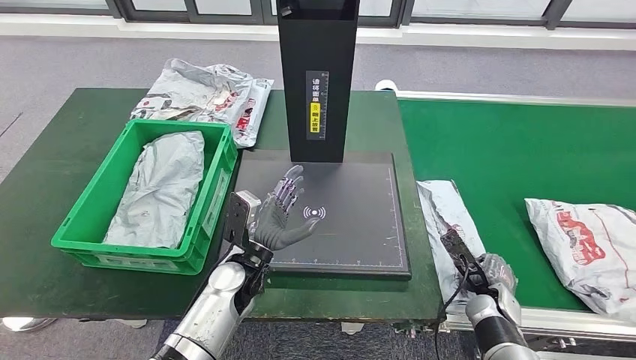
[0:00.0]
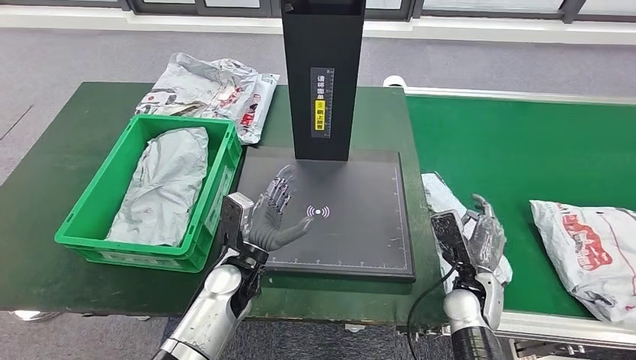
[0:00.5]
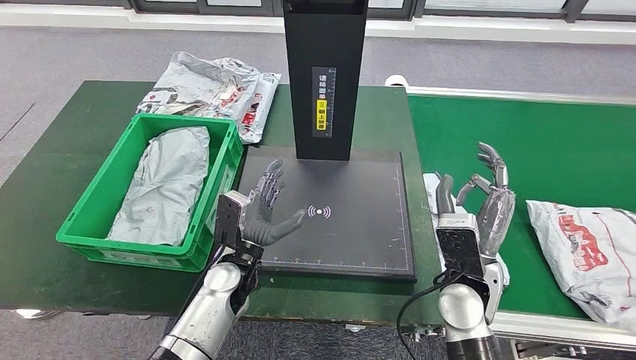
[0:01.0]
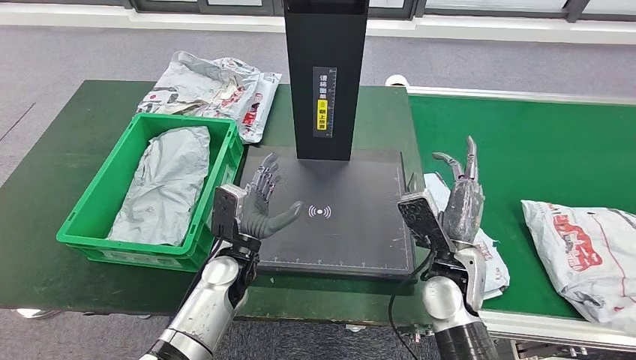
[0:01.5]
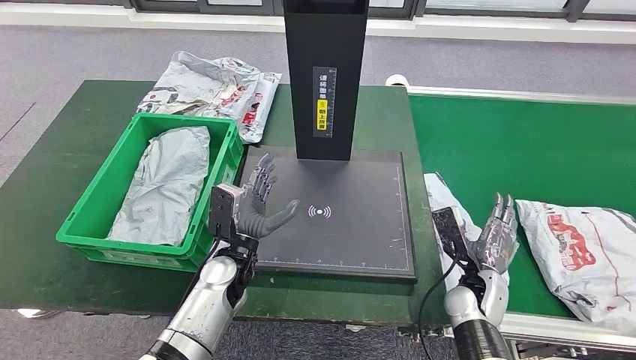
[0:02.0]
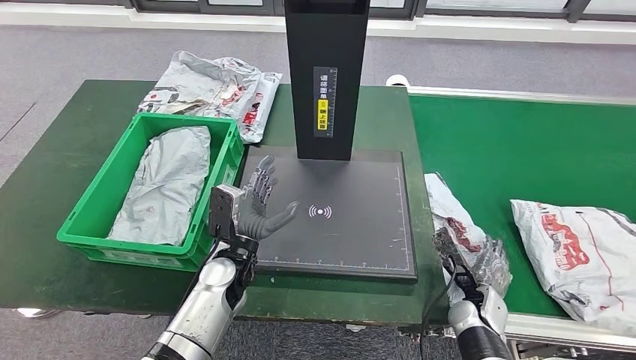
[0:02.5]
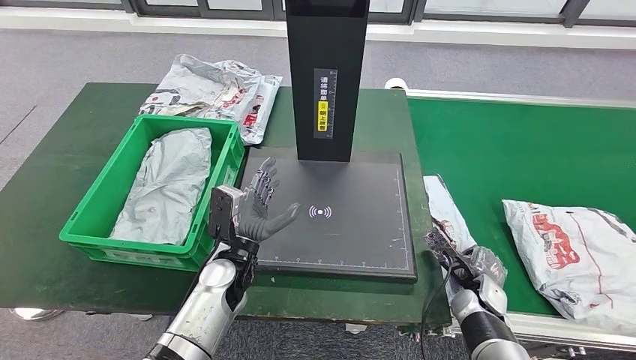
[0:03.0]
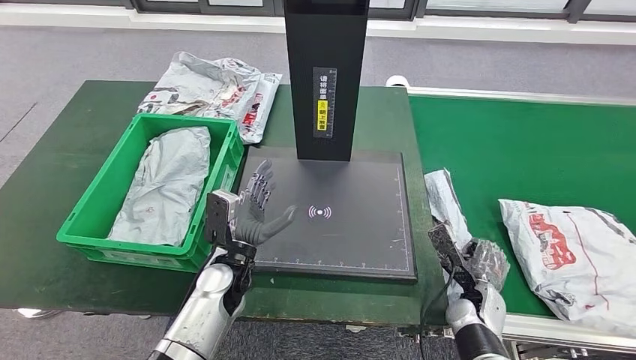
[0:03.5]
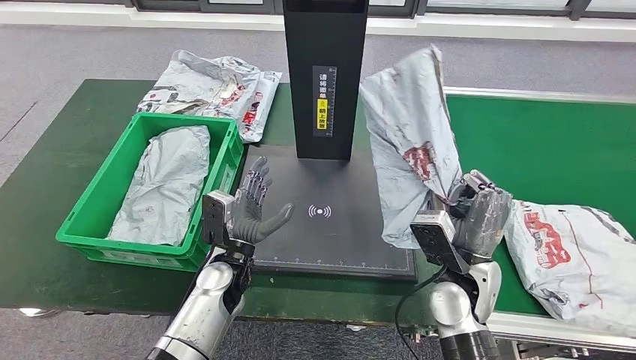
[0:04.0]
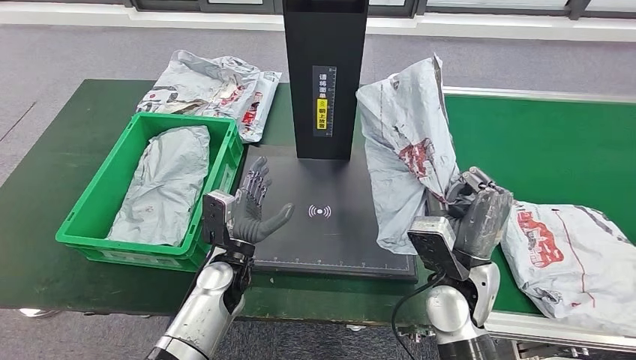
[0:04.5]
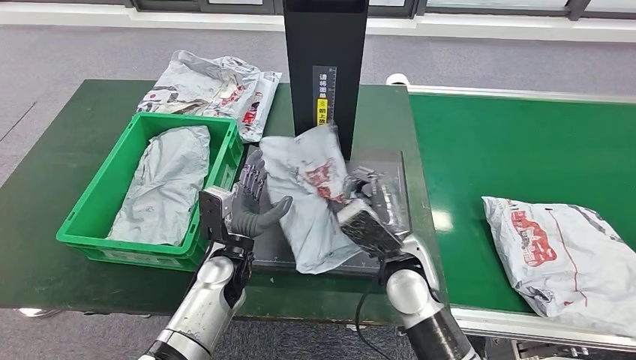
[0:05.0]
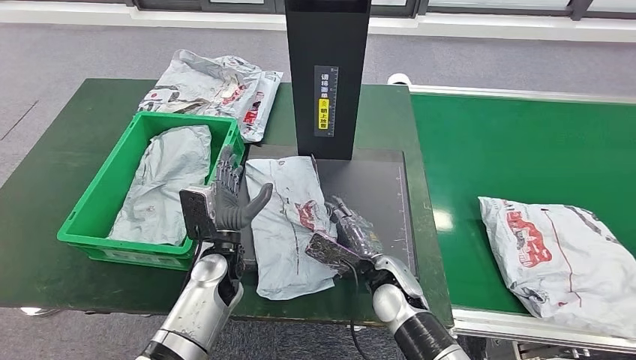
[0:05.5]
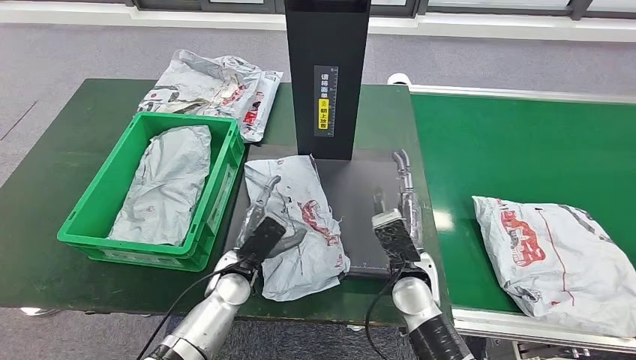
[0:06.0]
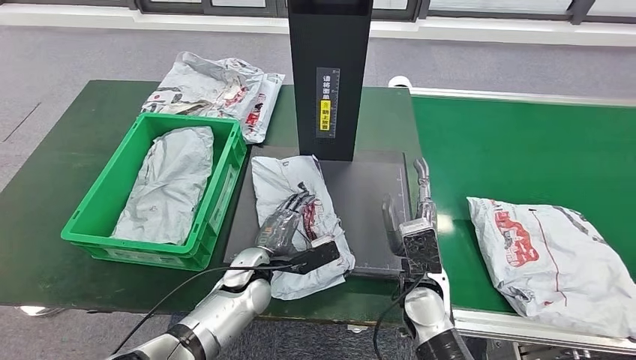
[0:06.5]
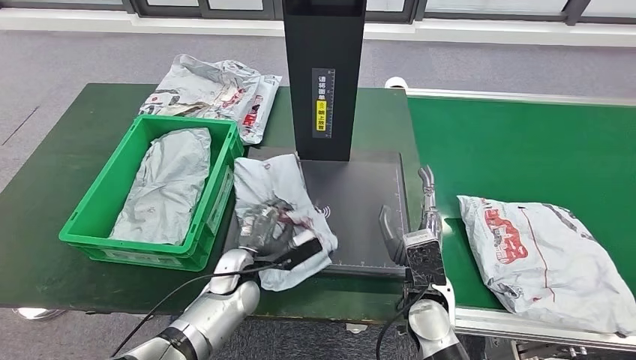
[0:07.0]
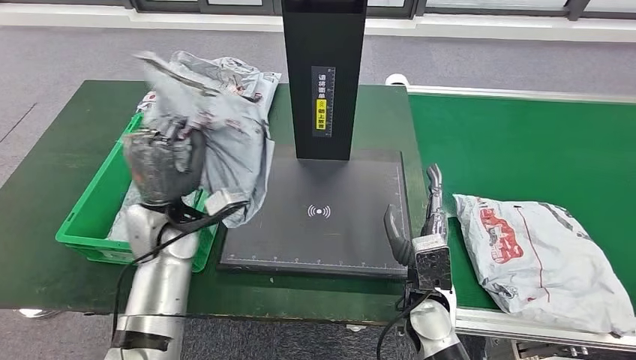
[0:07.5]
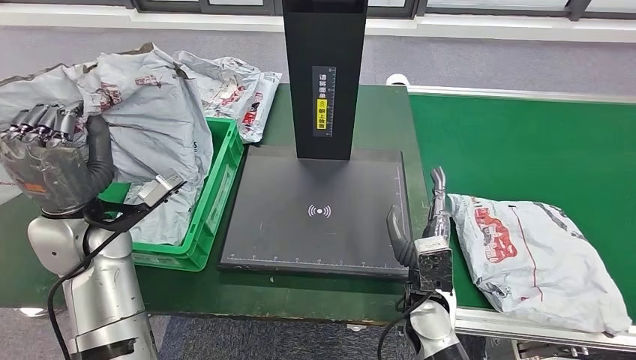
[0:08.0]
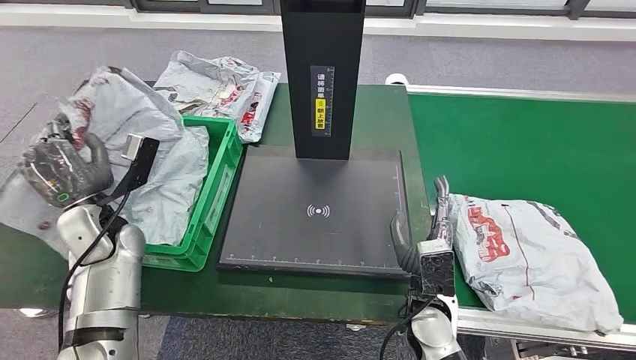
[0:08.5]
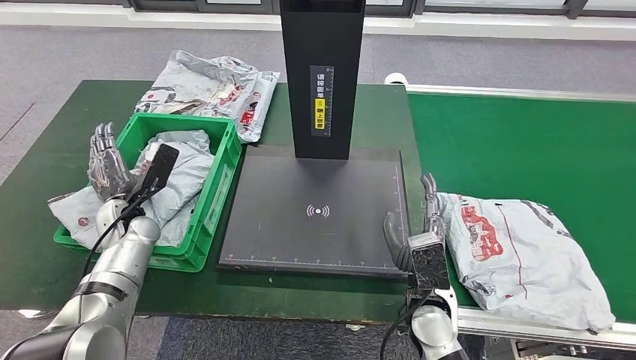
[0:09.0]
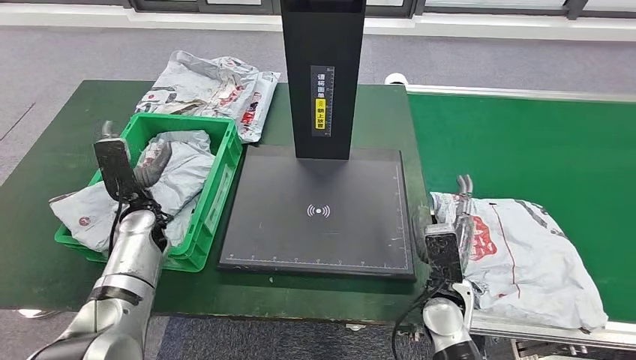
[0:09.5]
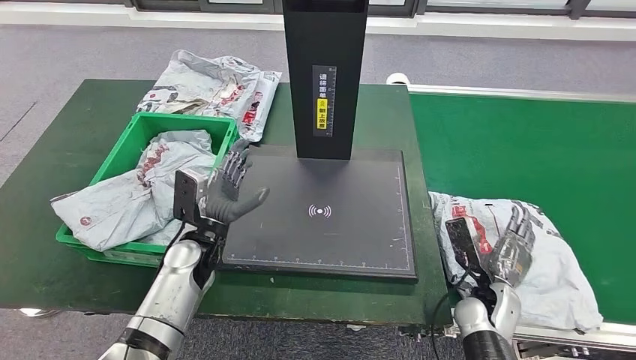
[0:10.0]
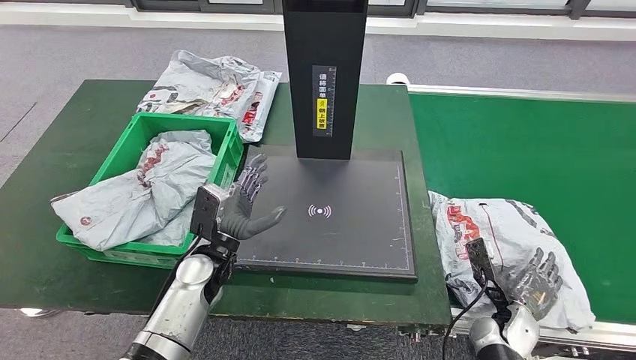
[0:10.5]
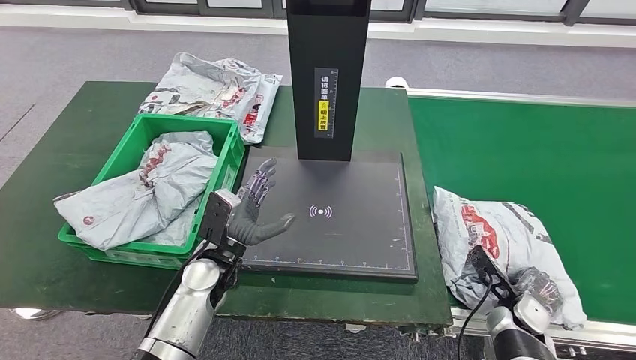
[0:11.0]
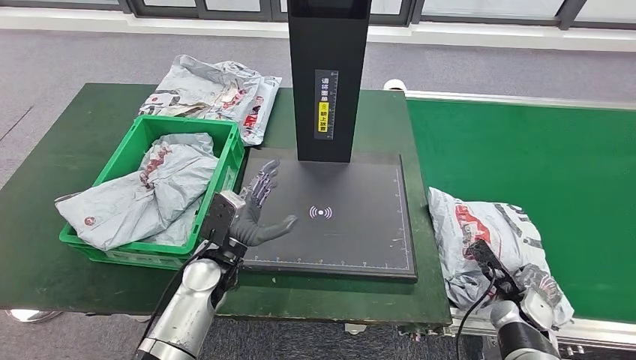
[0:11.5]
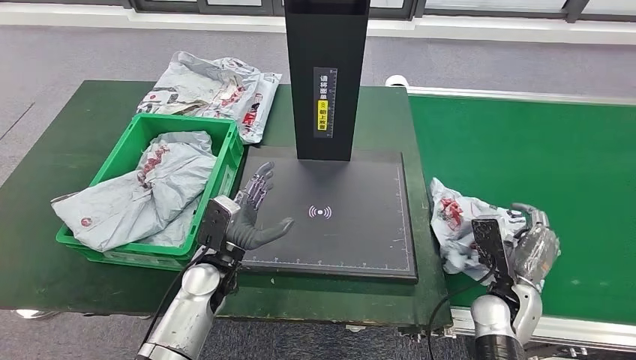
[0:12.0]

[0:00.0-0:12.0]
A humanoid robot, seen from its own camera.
Step, 0:00.0 to 0:04.5: Pick up the parcel from the conveyor belt.
Step, 0:05.0 to 0:06.5: Place the parcel onto the inbound machine.
Step, 0:07.0 to 0:08.0: Pick up the parcel from the inbound machine.
Step, 0:08.5 to 0:10.0: Place the parcel into the delivery box.
0:10.0 to 0:12.0: The left hand ends up about 5 cm from where it was.

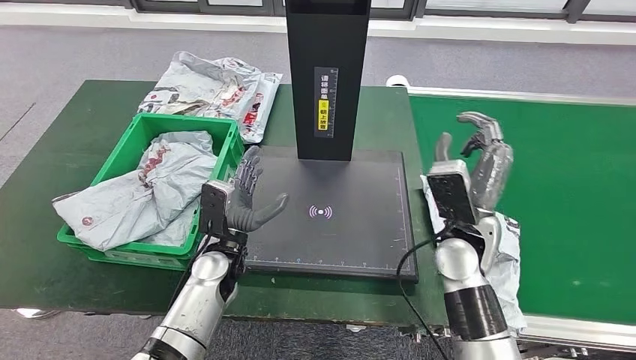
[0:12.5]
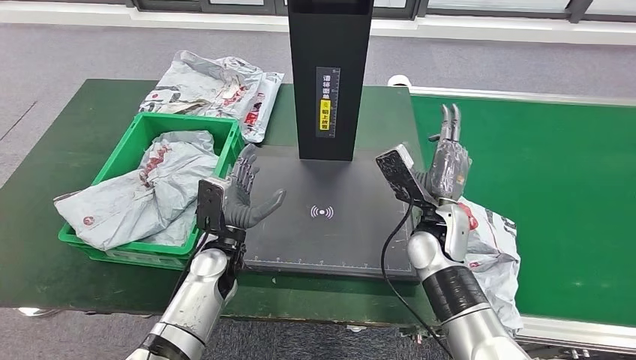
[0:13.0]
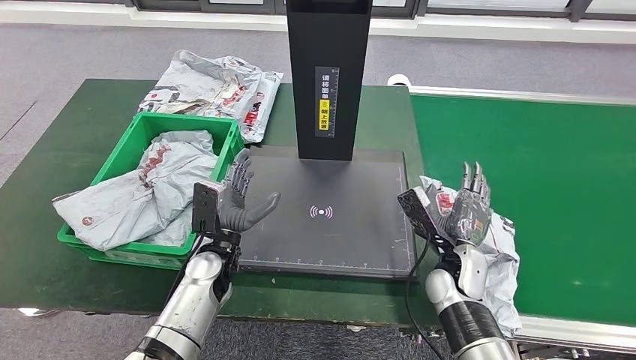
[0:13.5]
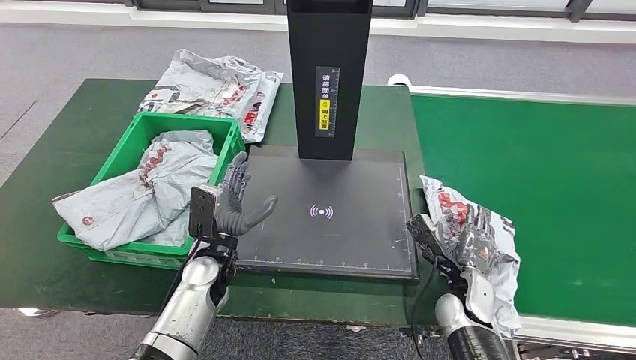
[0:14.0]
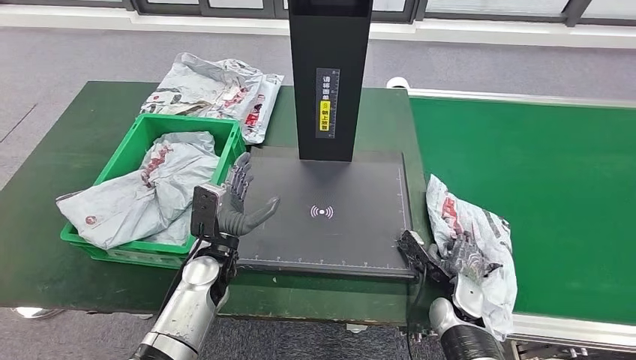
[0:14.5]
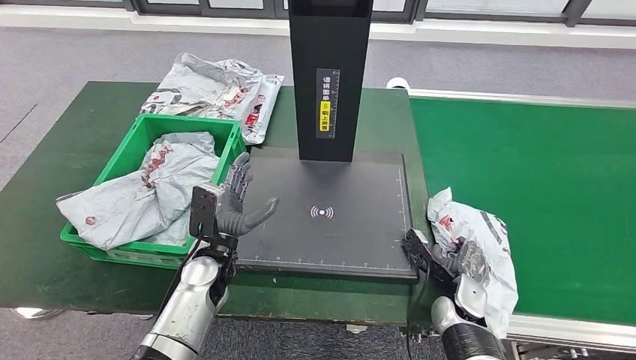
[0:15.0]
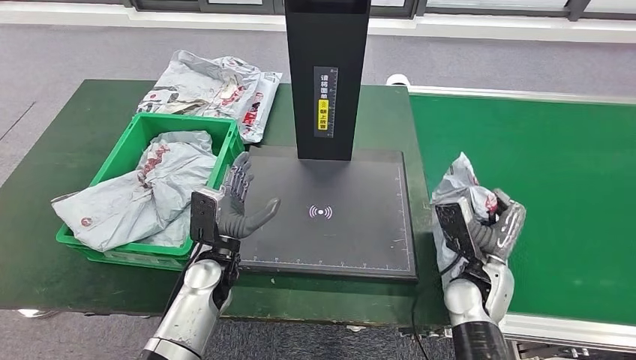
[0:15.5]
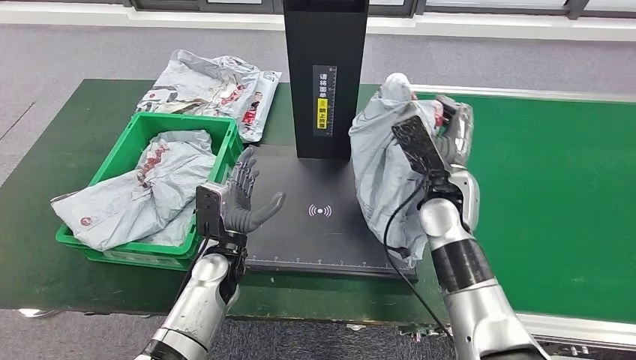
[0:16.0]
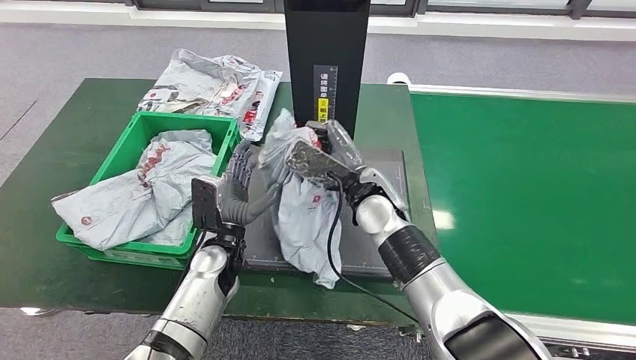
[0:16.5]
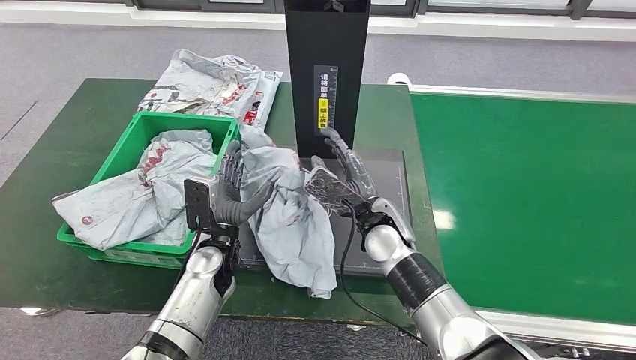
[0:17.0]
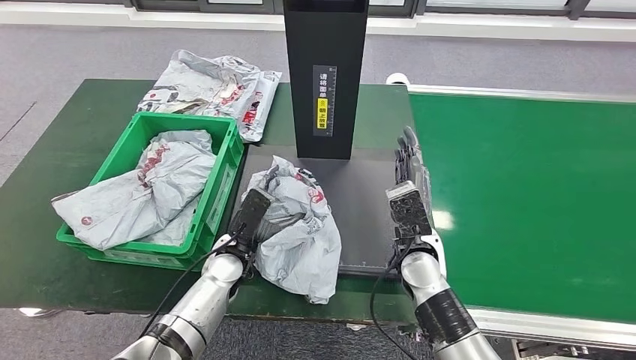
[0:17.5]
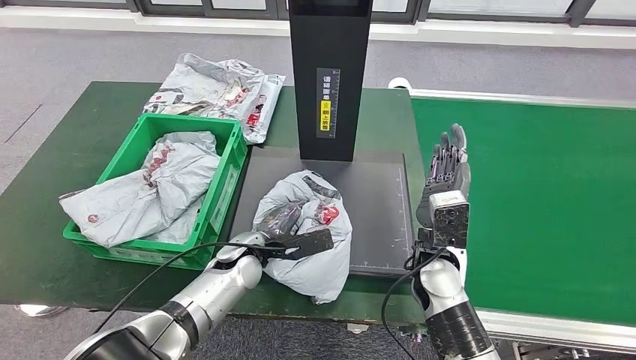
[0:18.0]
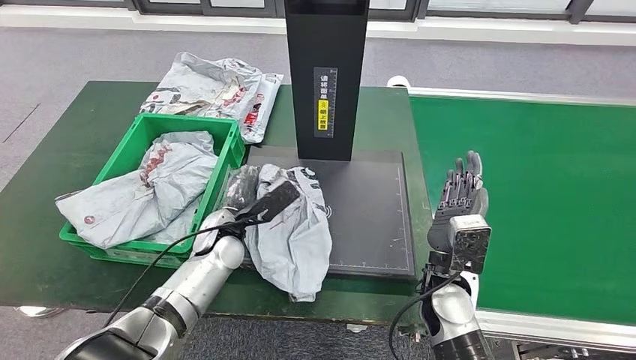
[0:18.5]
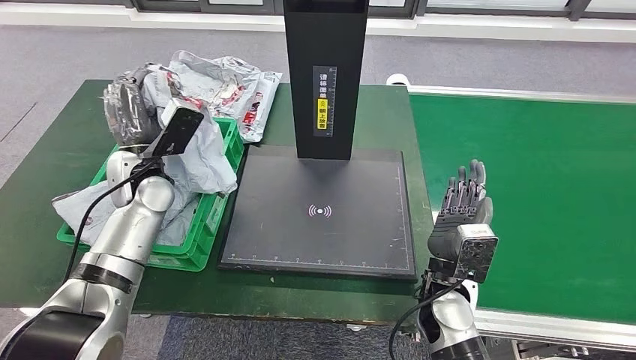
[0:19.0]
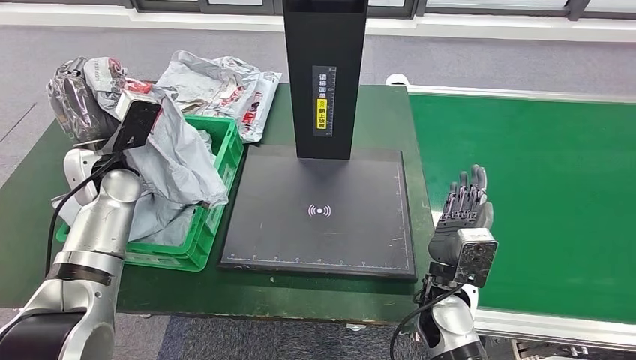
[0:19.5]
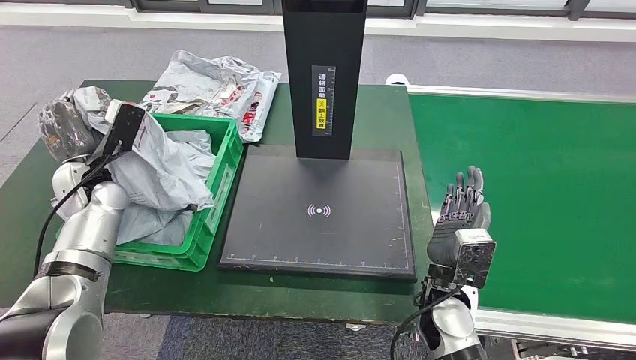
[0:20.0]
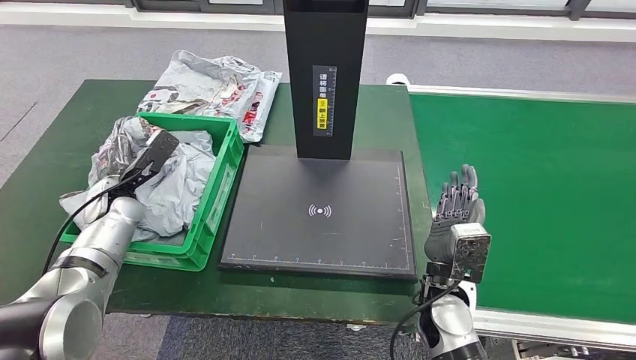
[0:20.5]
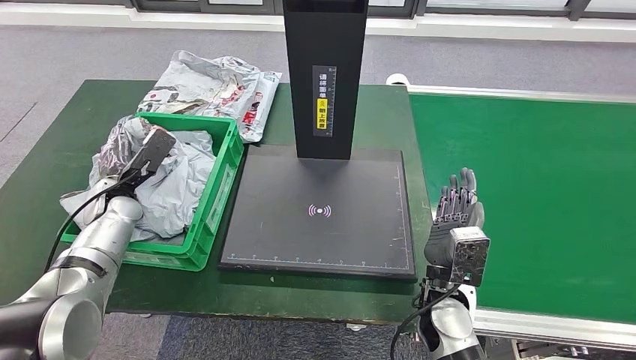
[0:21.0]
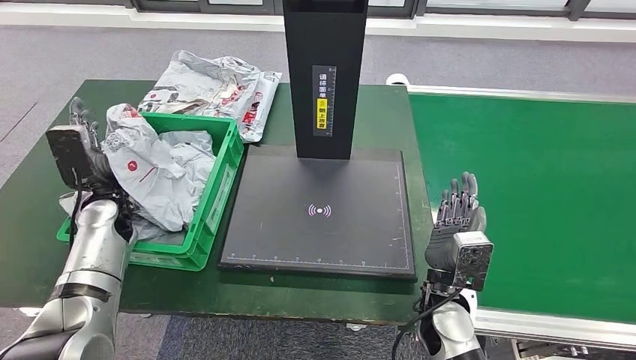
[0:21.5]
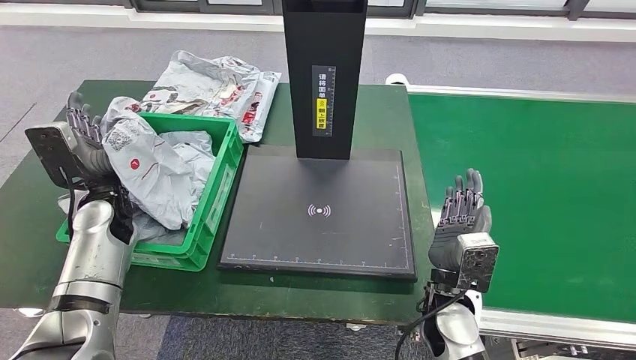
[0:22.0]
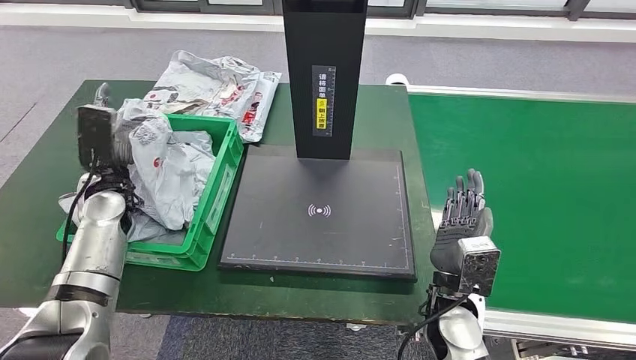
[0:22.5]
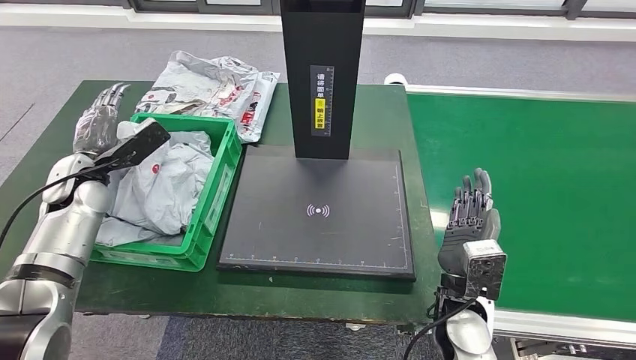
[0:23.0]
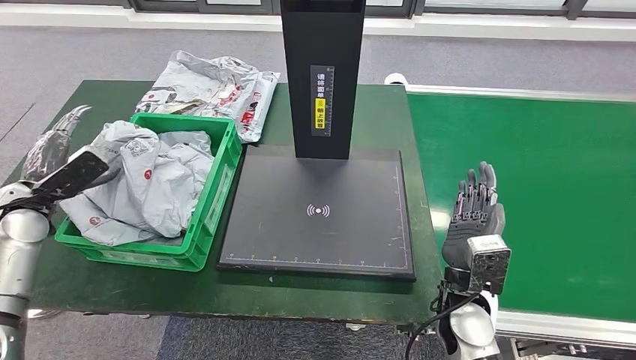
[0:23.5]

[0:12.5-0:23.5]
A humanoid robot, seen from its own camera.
Step, 0:12.5 to 0:16.0: Pick up the parcel from the conveyor belt.
Step, 0:16.5 to 0:18.0: Place the parcel onto the inbound machine.
Step, 0:18.5 to 0:19.5: Pick up the parcel from the inbound machine.
0:12.5 to 0:14.5: The right hand goes some 20 cm downward.
0:21.5 to 0:23.5: The left hand heads to the left, covering some 10 cm.
